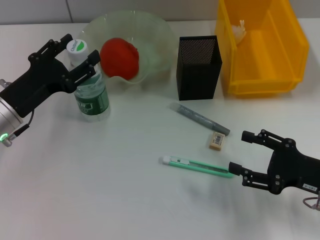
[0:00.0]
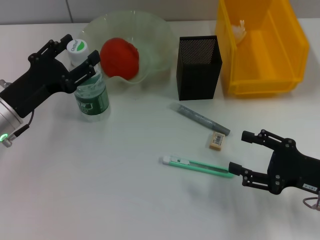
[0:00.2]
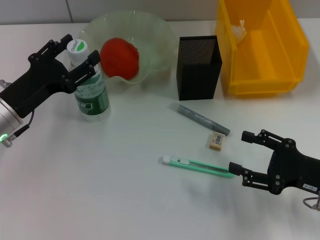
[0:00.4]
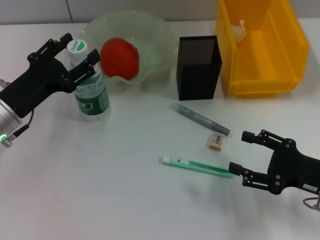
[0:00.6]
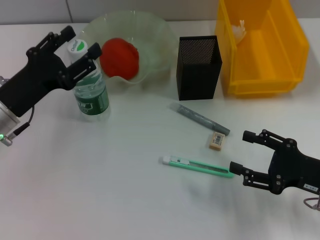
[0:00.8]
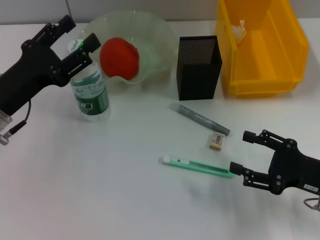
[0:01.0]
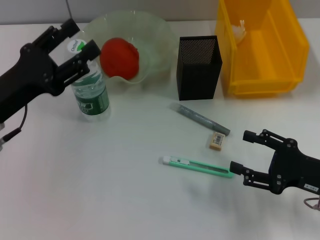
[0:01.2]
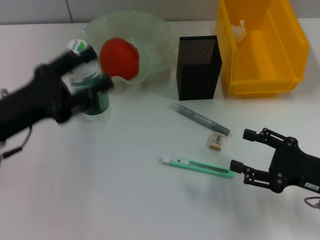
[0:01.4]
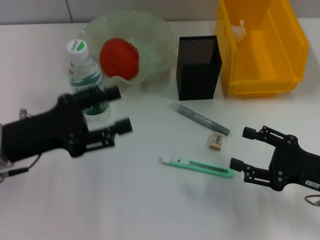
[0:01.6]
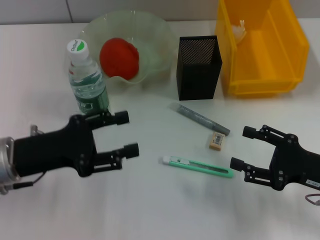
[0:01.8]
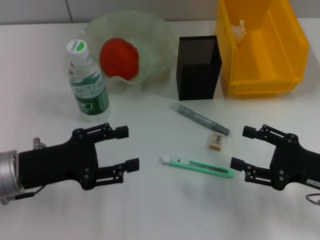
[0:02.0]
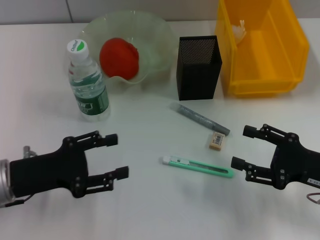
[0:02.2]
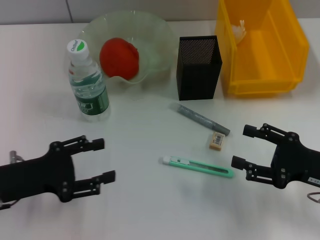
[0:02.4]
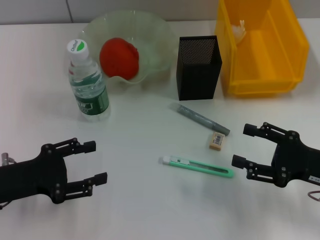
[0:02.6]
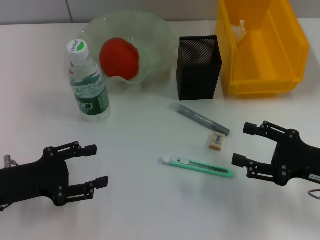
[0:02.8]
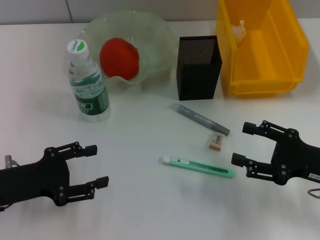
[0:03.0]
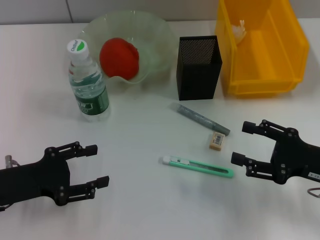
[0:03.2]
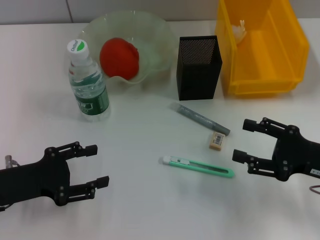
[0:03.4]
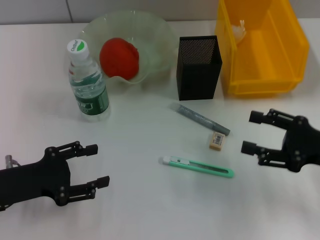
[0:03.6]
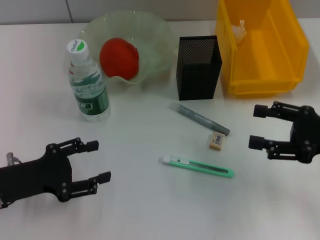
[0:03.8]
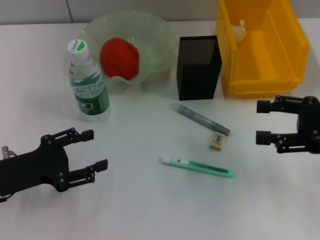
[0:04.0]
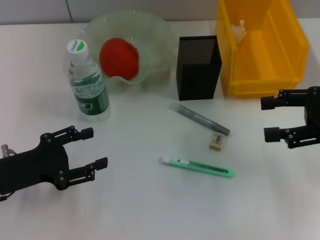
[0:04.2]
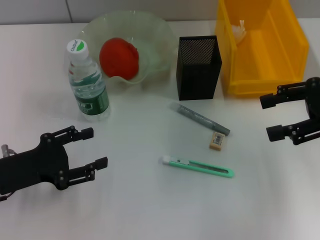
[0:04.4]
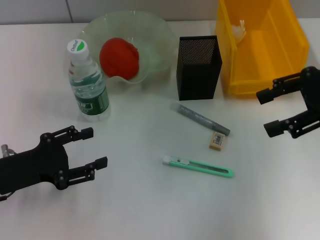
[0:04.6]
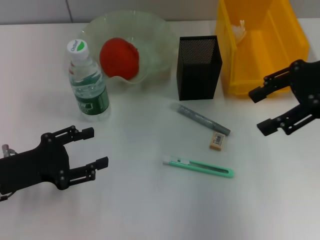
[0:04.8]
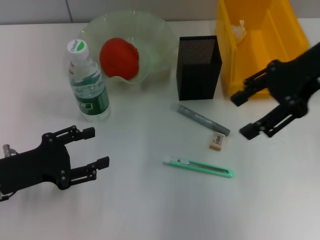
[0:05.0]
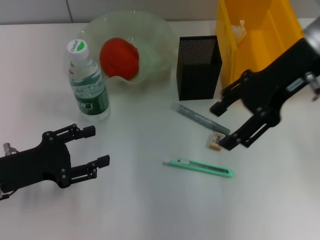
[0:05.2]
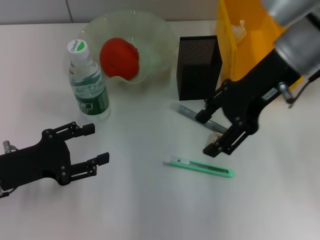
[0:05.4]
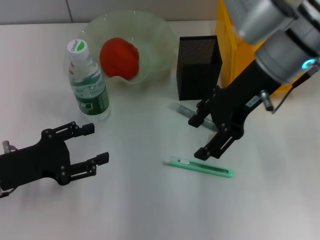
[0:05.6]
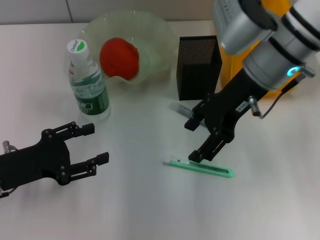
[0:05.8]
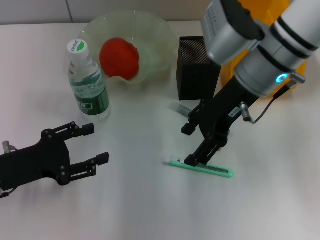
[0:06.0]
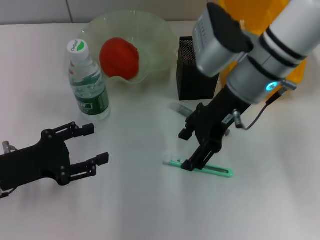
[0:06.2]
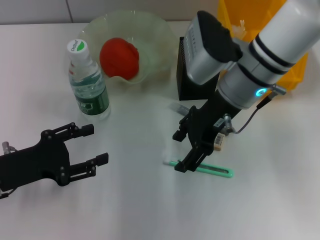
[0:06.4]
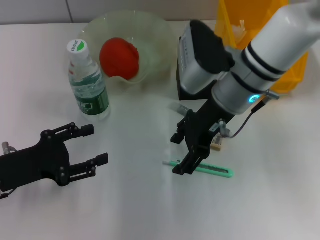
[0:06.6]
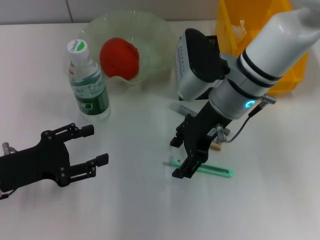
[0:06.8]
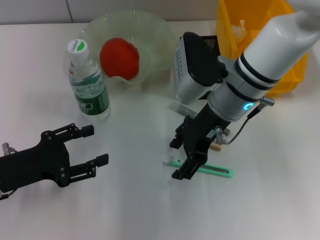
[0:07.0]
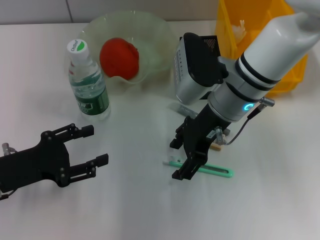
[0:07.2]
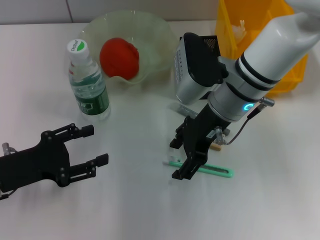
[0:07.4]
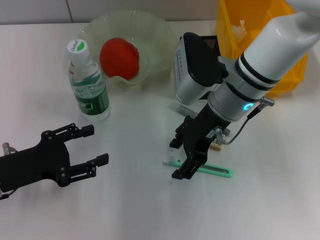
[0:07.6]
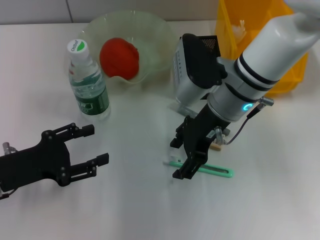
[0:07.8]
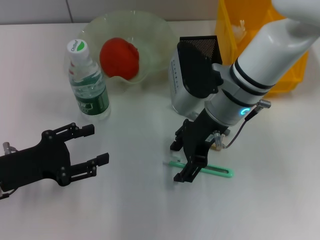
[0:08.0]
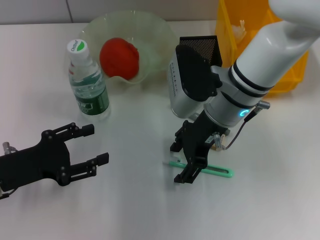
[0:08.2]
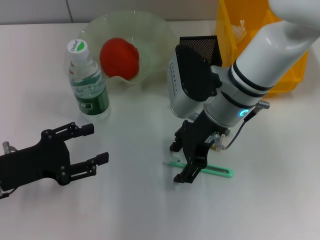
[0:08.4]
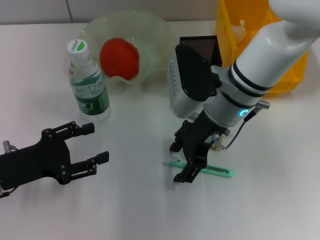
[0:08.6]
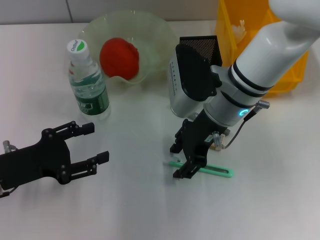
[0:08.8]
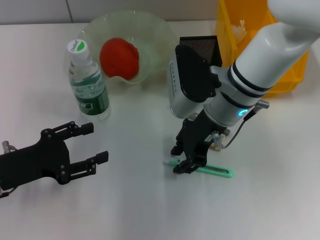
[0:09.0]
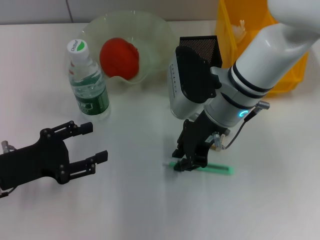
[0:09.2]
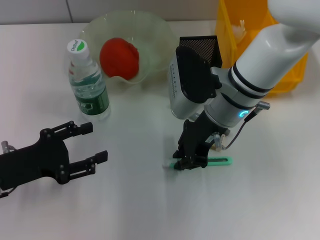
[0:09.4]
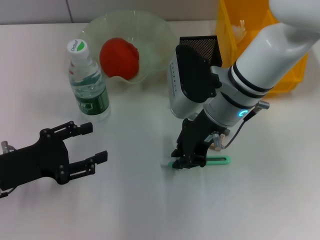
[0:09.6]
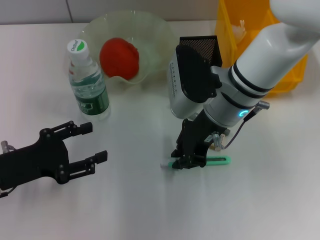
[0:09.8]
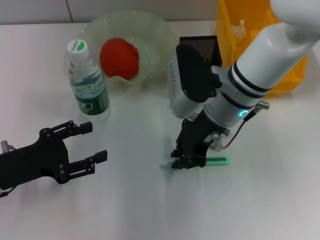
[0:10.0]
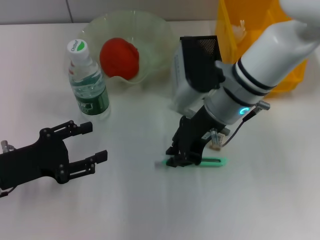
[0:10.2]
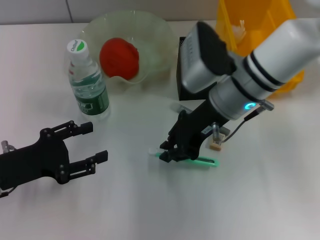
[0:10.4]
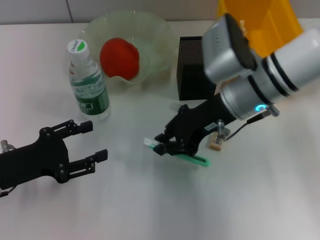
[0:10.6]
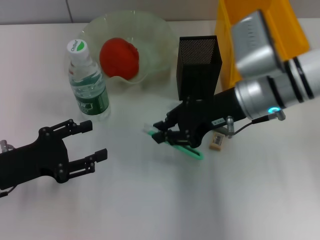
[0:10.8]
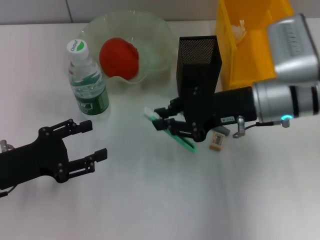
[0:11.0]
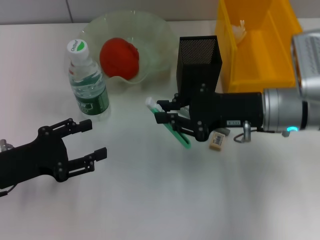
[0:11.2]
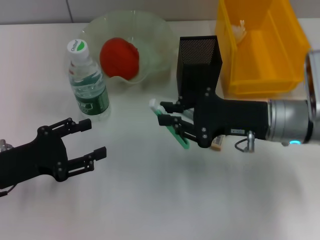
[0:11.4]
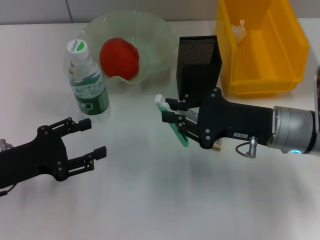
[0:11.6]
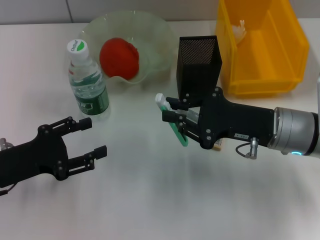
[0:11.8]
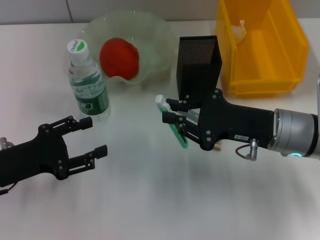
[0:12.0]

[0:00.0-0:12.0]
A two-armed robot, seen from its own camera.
Step, 0:01.2 to 0:10.0: Grab the blue utility knife with the right hand.
0:00.0 to 0:01.6: The left gripper moves some 5 cm.
0:01.6 to 0:03.0: The left gripper shifts by approximately 5 cm.
0:03.0 to 0:04.4: The right gripper is displaced upward and forward by approximately 15 cm.
0:04.4 to 0:06.0: The right gripper goes about 20 cm to the left.
0:06.0 to 0:07.6: The right gripper moves about 5 cm.
0:07.6 to 0:09.0: The grippers stay close to where they were, moving slightly.
0:09.0 to 0:10.4: The right gripper closes.
0:10.4 to 0:12.0: The right gripper heads to the right, backward and downward, covering some 10 cm.

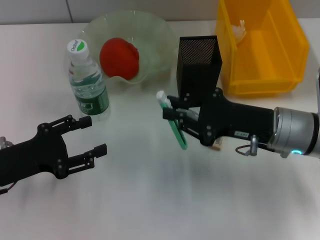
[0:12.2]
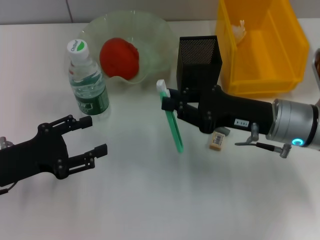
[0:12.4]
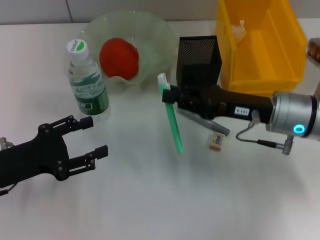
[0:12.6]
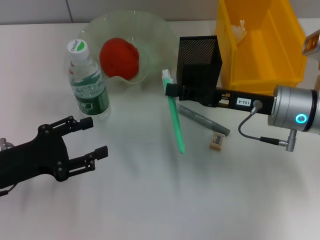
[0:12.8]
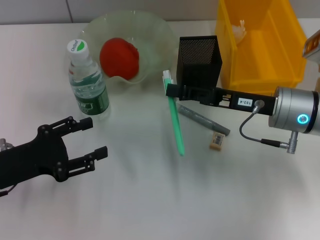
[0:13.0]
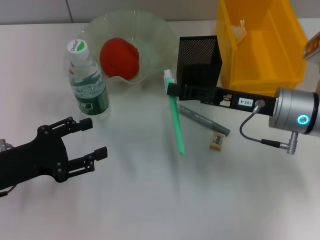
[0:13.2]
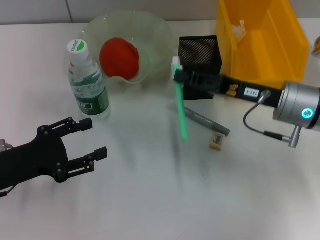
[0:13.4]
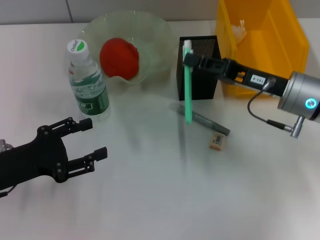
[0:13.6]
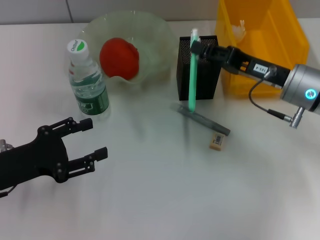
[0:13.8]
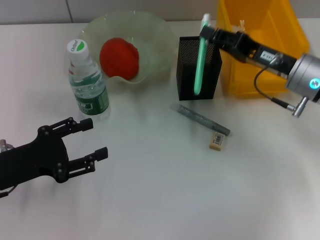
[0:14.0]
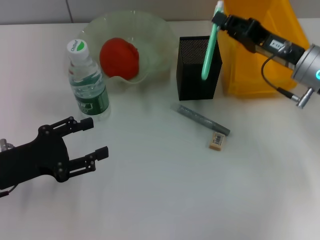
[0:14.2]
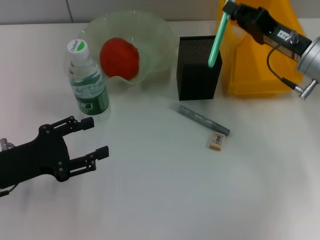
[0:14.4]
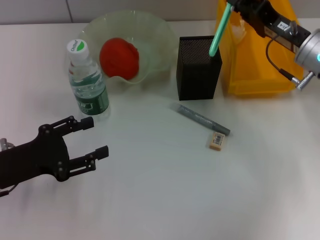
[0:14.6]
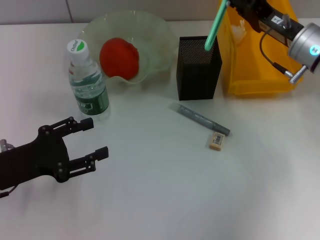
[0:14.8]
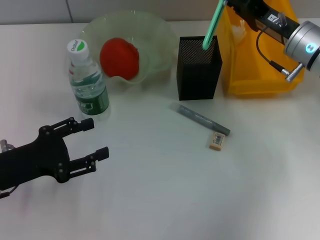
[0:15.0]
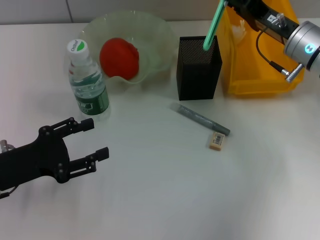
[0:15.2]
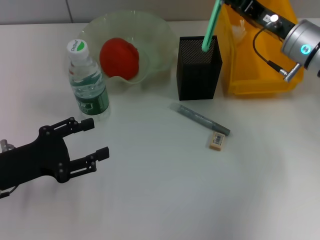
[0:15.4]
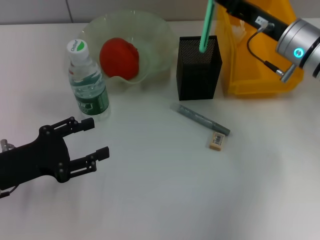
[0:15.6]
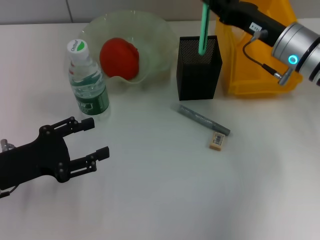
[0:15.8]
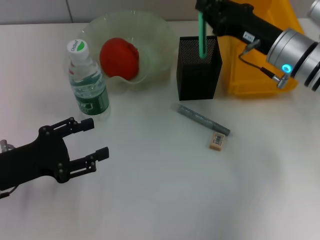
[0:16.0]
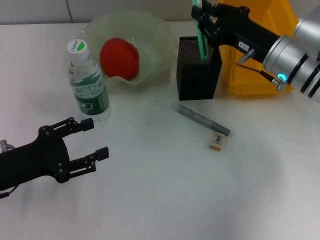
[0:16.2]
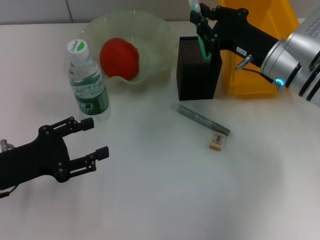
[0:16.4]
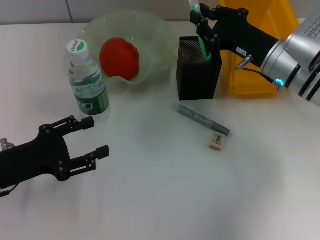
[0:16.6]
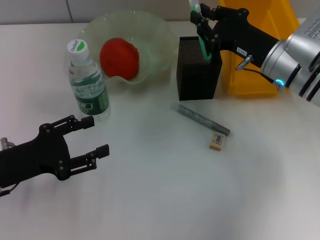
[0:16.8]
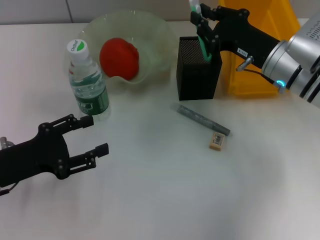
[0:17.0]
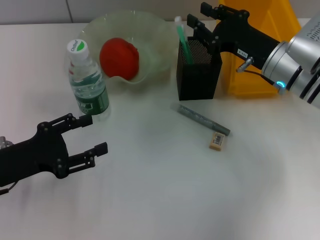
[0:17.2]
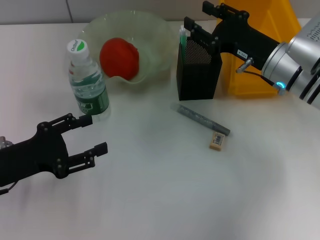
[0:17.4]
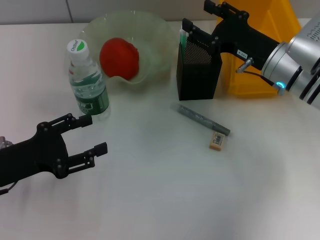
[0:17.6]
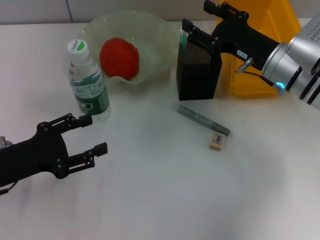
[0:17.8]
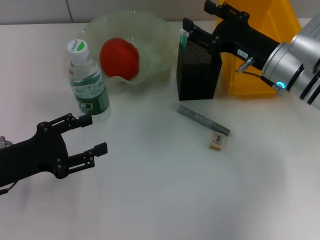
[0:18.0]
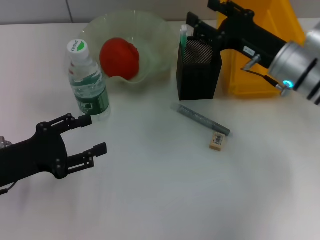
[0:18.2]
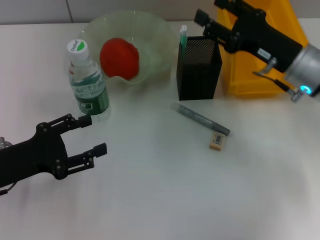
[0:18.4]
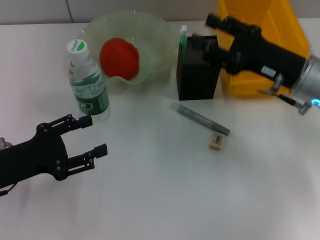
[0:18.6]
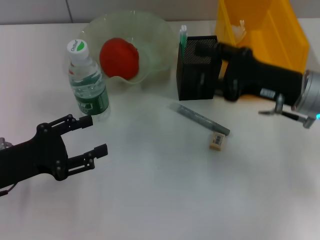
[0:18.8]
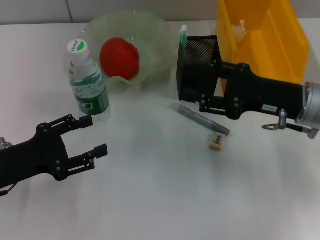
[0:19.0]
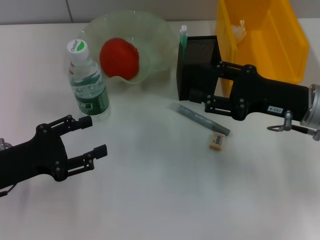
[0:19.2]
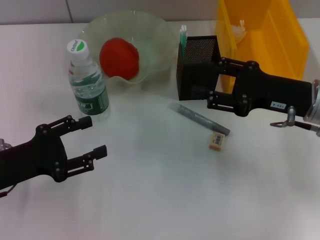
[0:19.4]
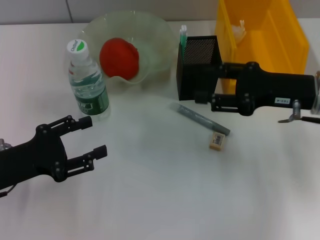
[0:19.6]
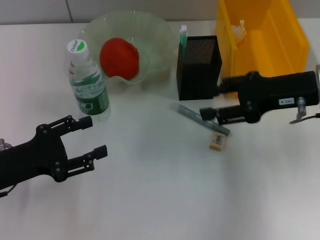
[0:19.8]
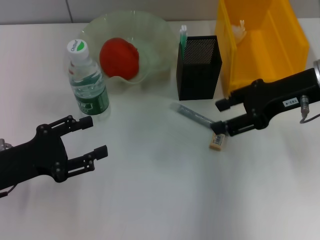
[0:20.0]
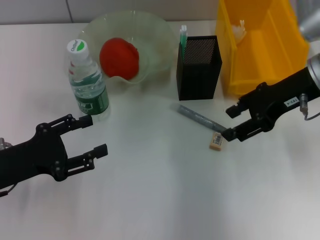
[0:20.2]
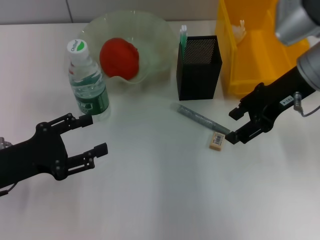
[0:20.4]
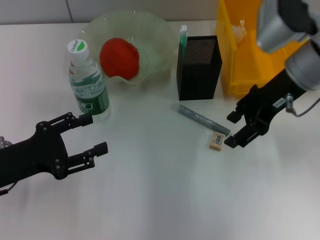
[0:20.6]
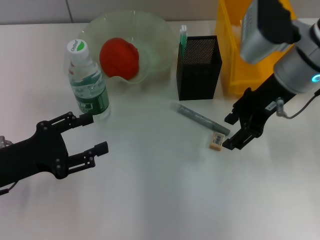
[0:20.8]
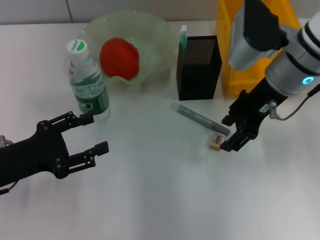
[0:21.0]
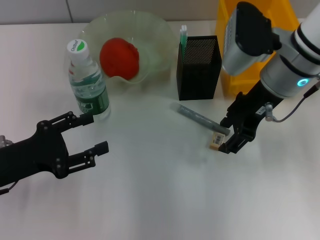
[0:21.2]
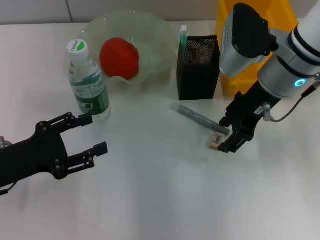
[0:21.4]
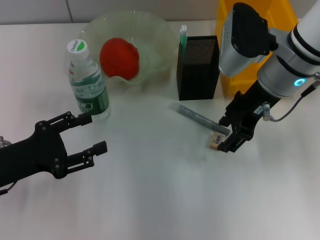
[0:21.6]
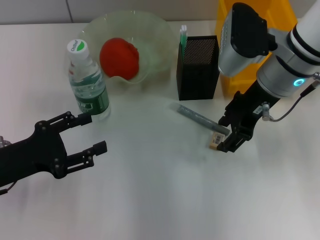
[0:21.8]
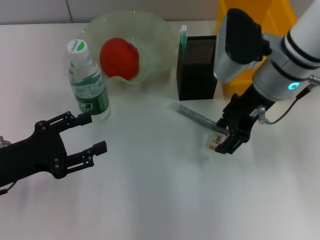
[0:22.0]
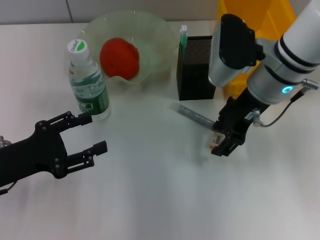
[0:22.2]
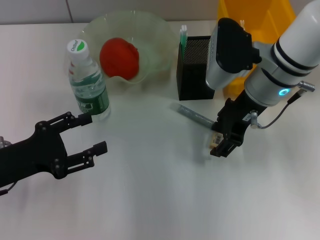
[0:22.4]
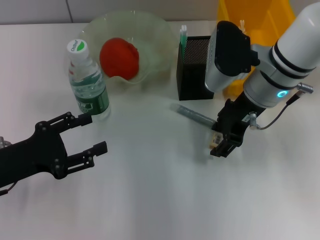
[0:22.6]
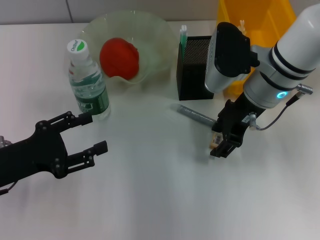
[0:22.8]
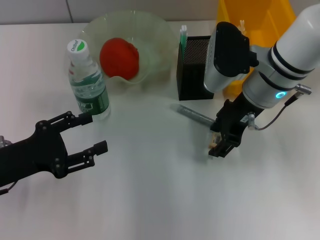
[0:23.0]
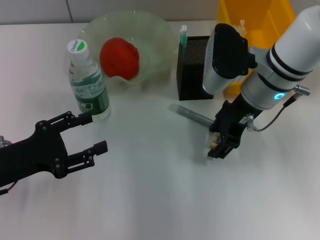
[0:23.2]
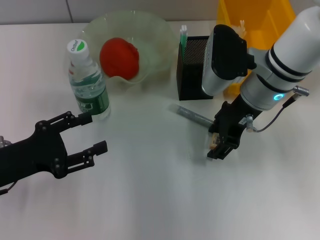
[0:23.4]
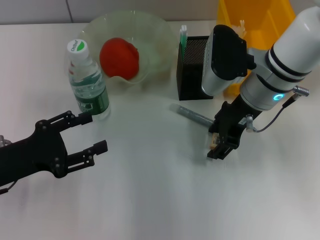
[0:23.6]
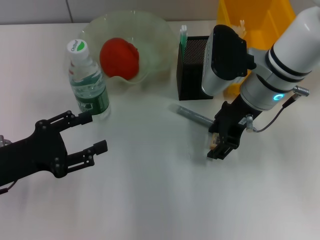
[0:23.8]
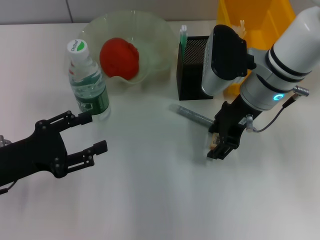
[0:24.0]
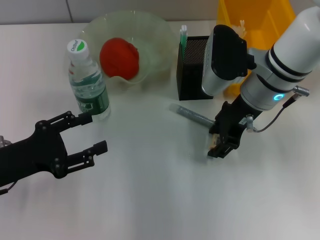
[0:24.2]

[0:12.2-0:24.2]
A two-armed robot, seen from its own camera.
Step, 0:12.2 to 0:17.8: Place the blue utility knife into the pen holder with the right hand.
0:12.2 to 0:13.8: The right gripper travels forward by approximately 5 cm.
0:13.8 to 0:15.2: The right gripper goes some 5 cm forward.
0:16.6 to 0:18.2: The right gripper opens its fingers.
0:18.2 to 0:19.8: The right gripper travels upward by about 5 cm.
0:19.8 to 0:21.2: The right gripper heads to the left, covering about 10 cm.
0:21.2 to 0:22.6: The grippers make only small movements.
0:22.6 to 0:24.2: The two grippers keep their place.
